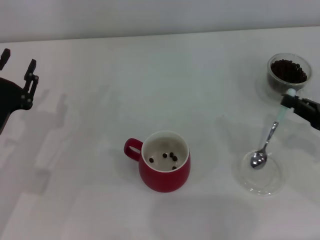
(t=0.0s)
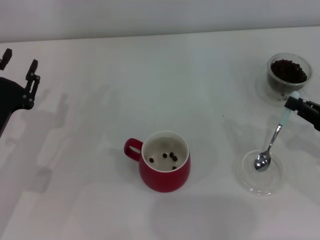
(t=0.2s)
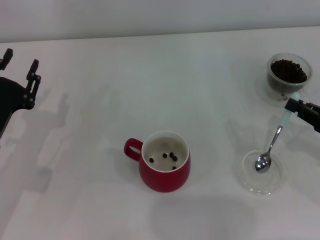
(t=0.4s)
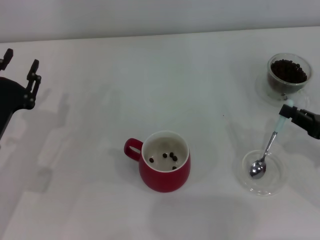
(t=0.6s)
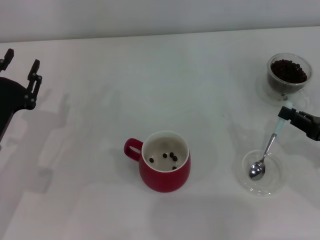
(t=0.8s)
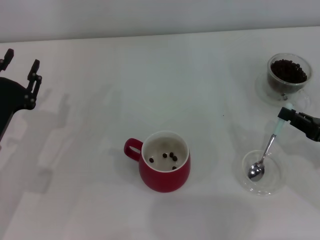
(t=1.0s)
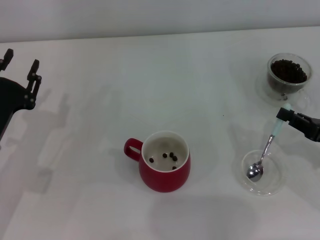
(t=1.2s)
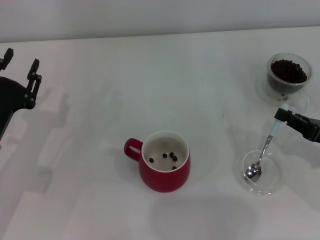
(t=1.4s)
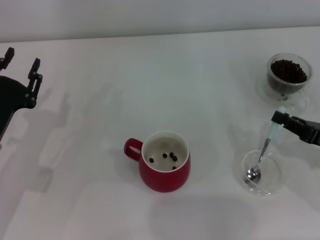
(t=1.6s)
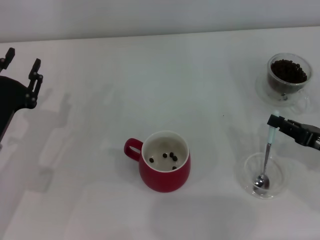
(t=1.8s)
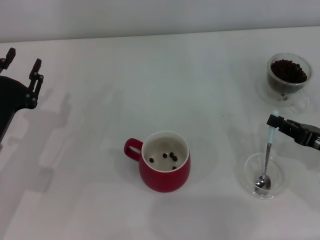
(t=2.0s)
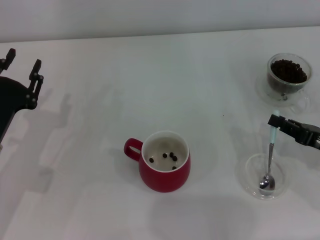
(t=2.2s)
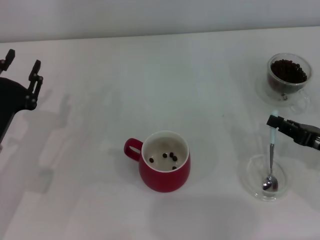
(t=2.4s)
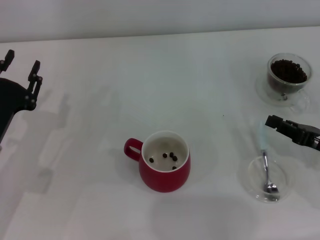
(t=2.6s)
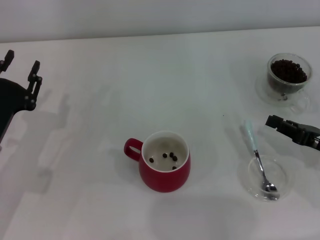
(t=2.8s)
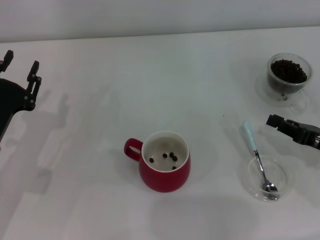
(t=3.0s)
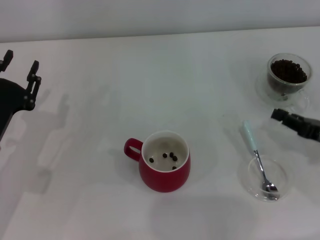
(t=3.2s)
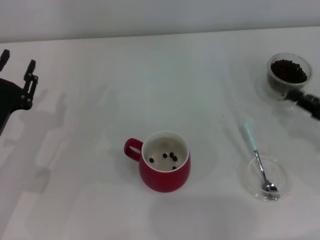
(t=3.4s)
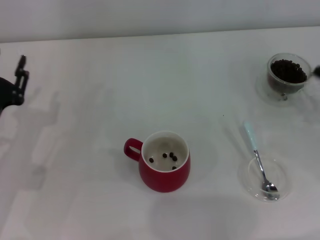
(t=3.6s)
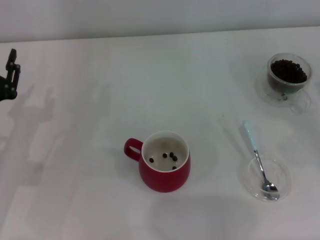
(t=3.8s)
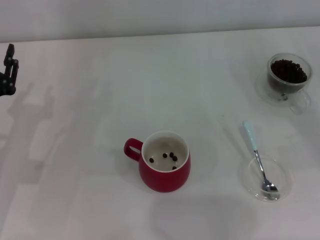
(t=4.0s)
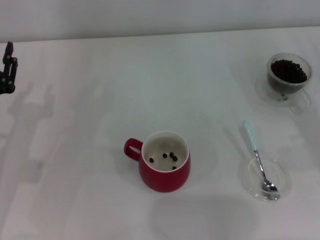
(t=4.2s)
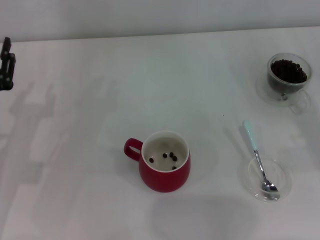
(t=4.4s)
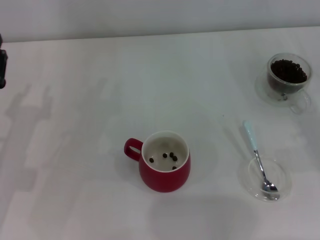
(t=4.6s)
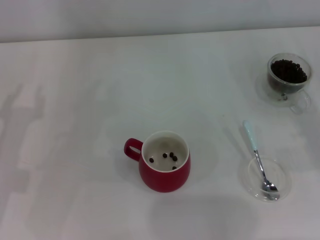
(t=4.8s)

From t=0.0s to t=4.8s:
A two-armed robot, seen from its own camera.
Task of the whole recording: Use a blue spoon to take out the coffee beans from the glass and pour them into the red cup.
Step, from t=0.0s to t=2.8s: Place the spoon back in its original place with the right gripper.
From t=0.0s to t=1.6s: There are only small adjustments of the grippers.
From t=1.6s to t=3.2s: Both grippers stay put.
From t=3.2s to t=4.8s: The right gripper is displaced to the right by about 5 cm, and opens its fingers.
